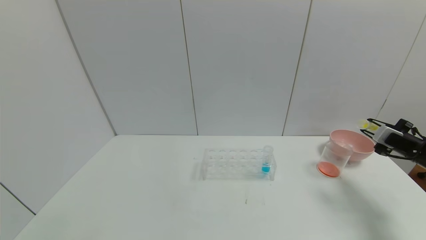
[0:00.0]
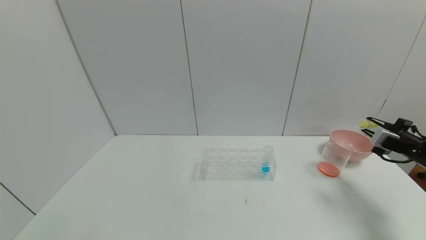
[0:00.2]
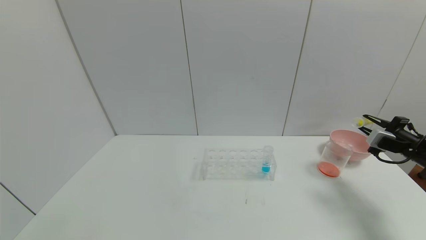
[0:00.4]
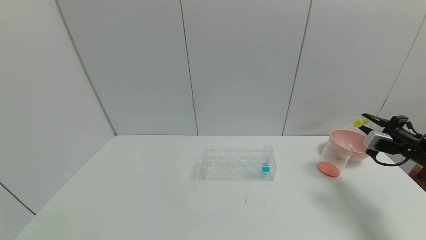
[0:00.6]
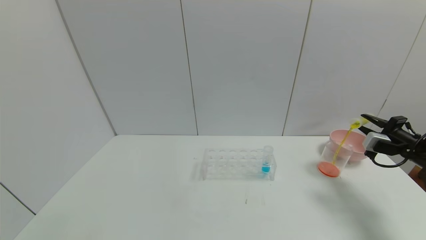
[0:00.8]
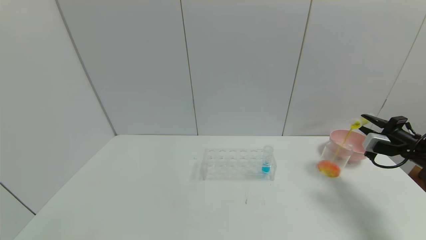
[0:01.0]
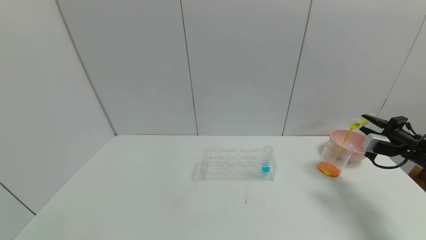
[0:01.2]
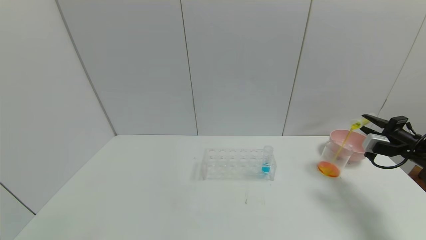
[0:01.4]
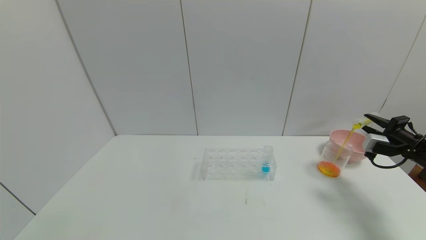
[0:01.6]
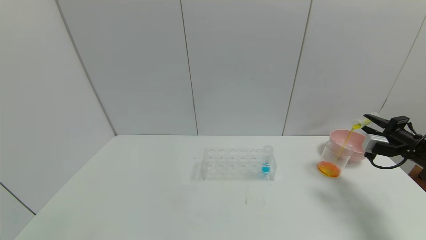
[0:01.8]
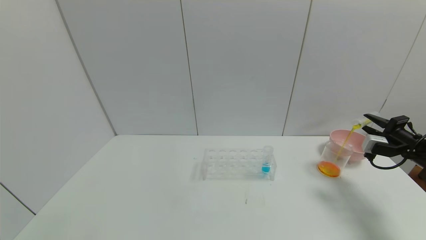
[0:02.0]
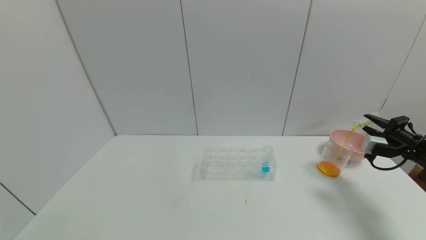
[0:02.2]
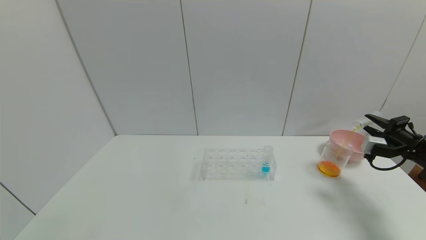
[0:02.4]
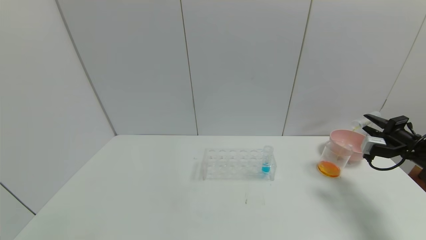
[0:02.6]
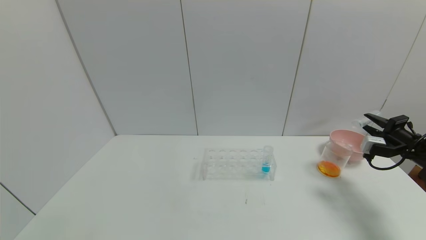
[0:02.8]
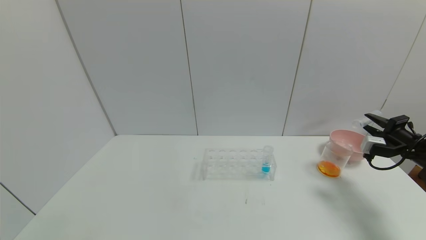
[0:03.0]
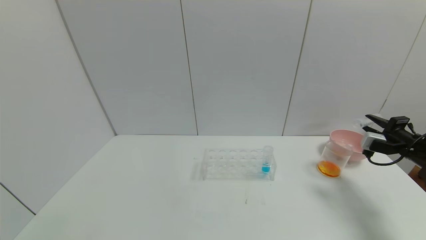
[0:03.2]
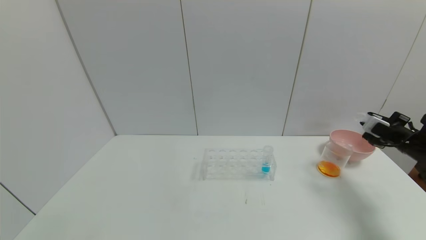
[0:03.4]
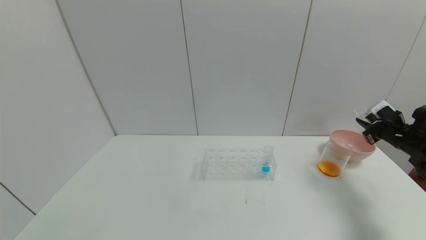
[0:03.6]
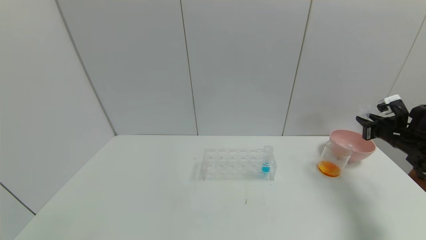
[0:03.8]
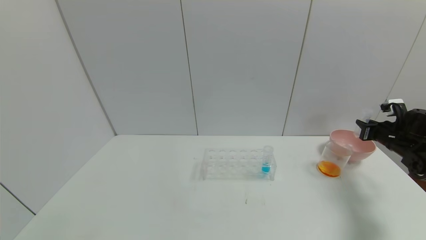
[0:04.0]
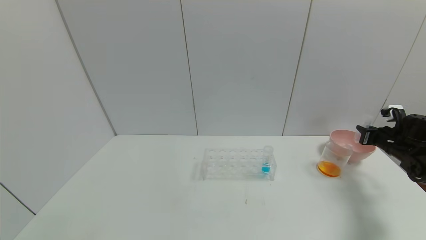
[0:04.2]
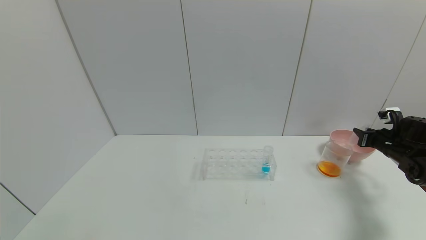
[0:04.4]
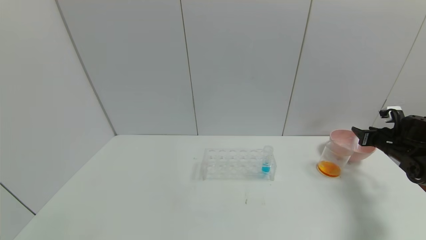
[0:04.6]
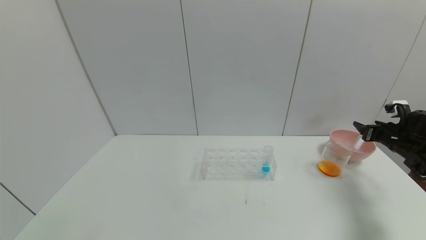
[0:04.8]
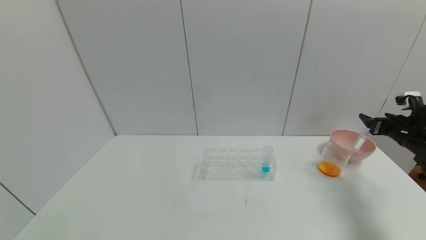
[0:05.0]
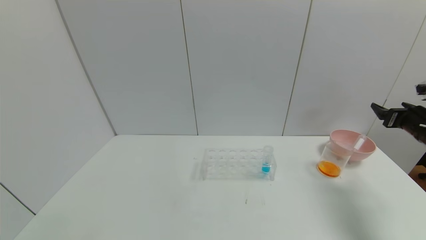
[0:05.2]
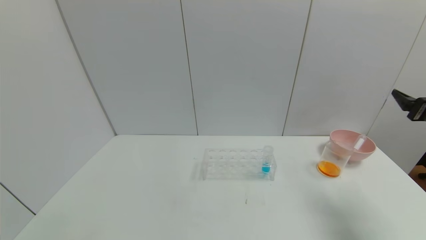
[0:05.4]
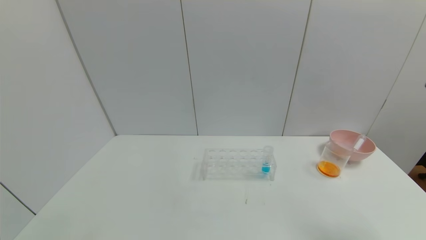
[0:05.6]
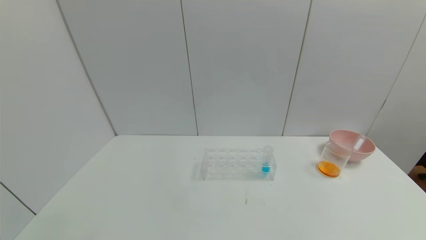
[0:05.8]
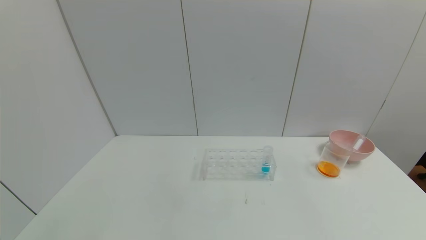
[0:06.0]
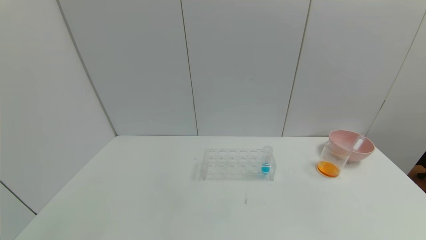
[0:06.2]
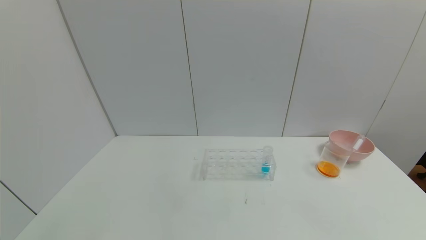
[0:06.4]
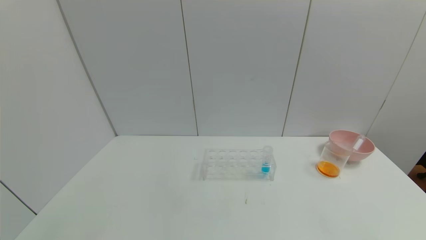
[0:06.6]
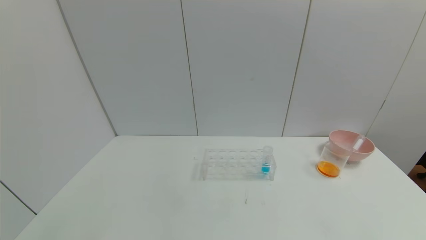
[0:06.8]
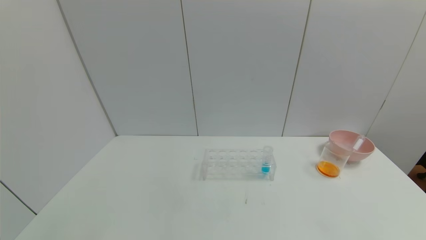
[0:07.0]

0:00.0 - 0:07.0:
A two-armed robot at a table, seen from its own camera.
Task of the whole recording: pick up the test tube with yellow pigment and the test tube with red pigment by grippers and pour them into the beaker.
Step, 0:00.0 - 0:02.8: Pour the yellow reagent into the graduated cylinder with the right gripper.
Step, 0:03.0 - 0:04.6: Place the test tube into the bowl with the right gripper.
0:01.4 - 0:02.8: The grippers make only small movements.
0:02.8 - 0:04.2: The right gripper moves some 5 cm.
0:04.2 - 0:05.6: The right gripper shifts about 25 cm backward and upward, and opens.

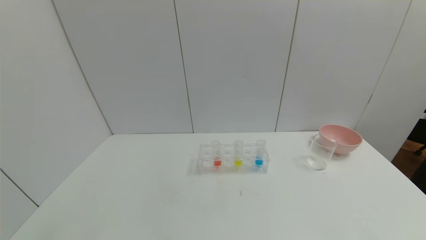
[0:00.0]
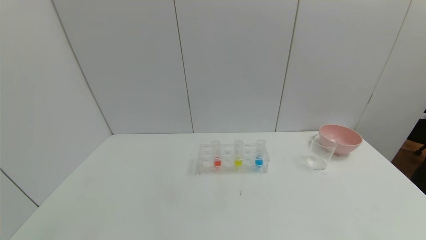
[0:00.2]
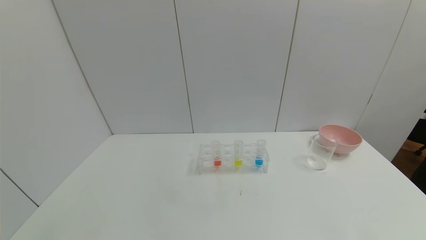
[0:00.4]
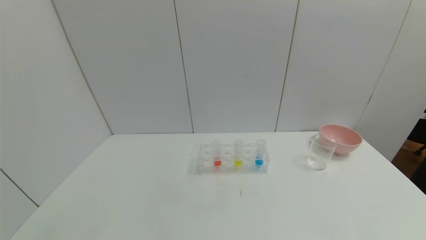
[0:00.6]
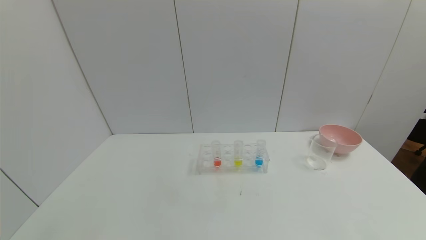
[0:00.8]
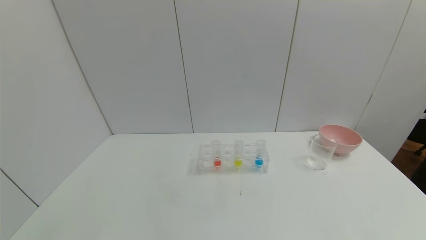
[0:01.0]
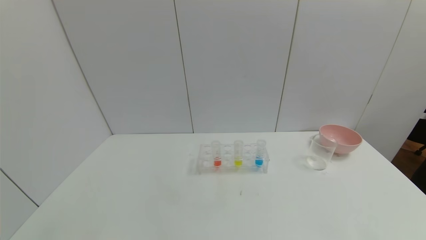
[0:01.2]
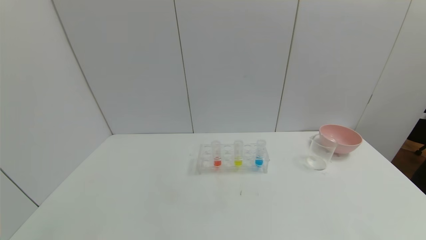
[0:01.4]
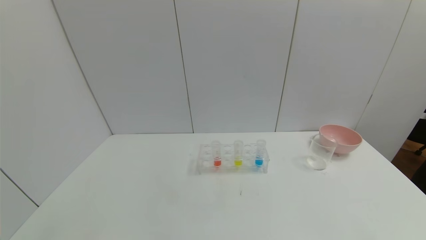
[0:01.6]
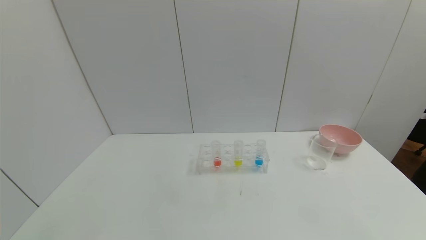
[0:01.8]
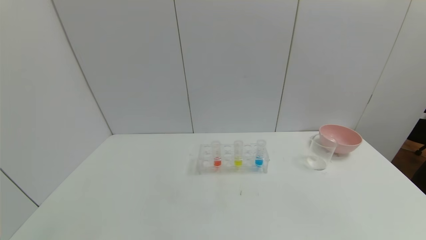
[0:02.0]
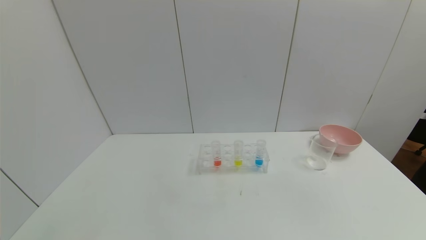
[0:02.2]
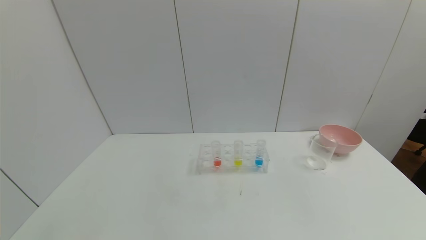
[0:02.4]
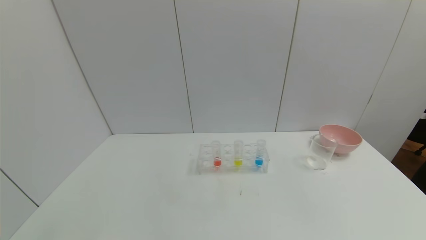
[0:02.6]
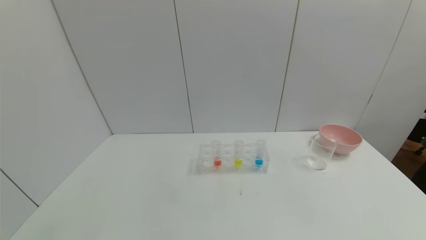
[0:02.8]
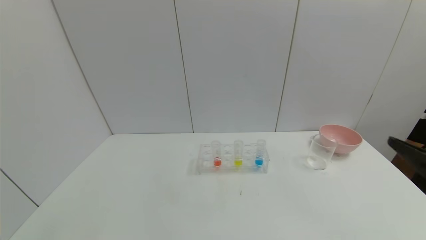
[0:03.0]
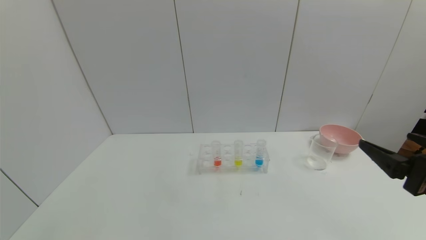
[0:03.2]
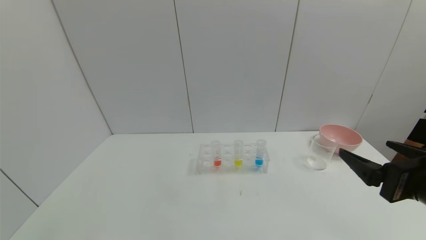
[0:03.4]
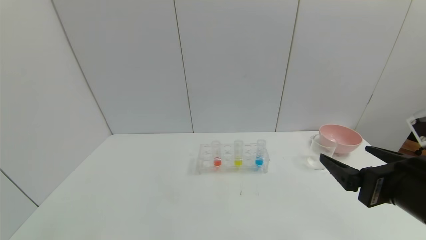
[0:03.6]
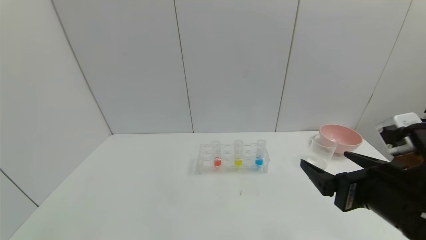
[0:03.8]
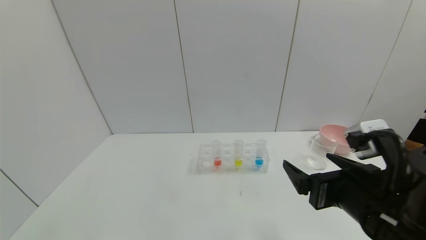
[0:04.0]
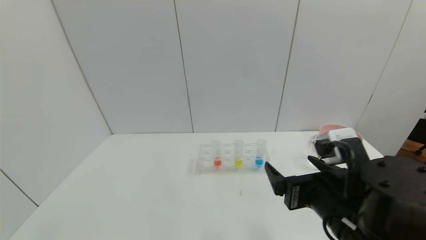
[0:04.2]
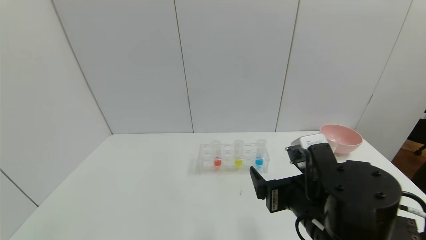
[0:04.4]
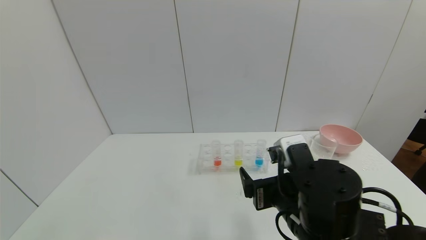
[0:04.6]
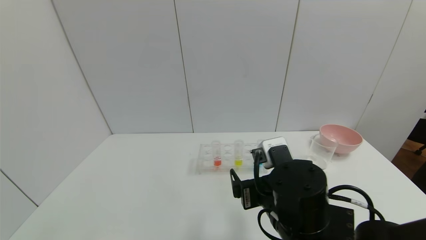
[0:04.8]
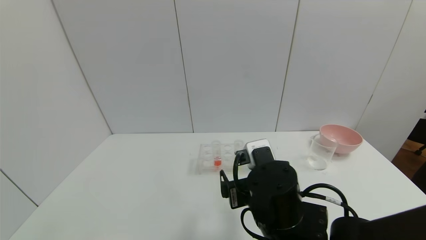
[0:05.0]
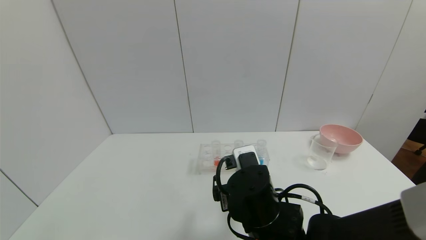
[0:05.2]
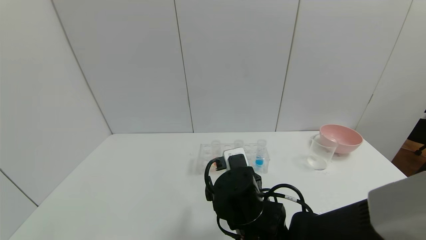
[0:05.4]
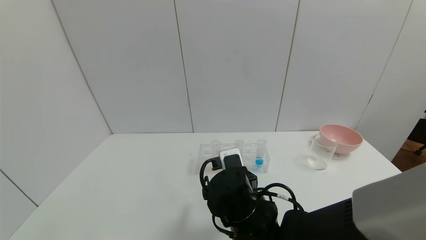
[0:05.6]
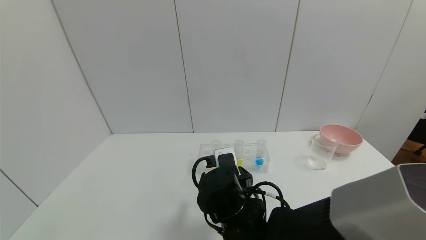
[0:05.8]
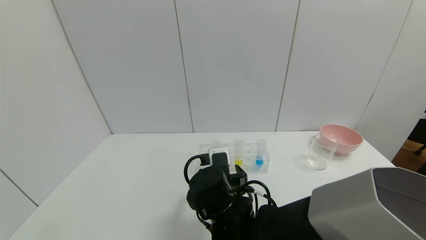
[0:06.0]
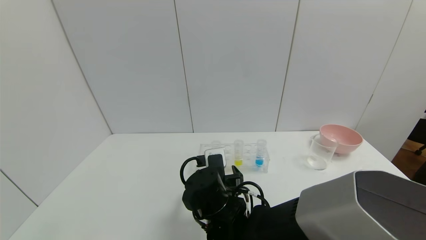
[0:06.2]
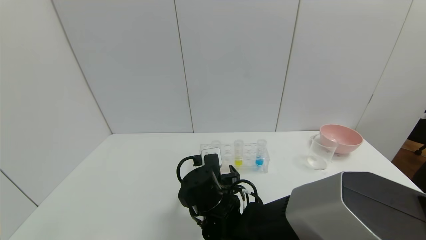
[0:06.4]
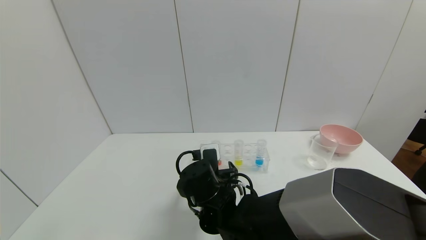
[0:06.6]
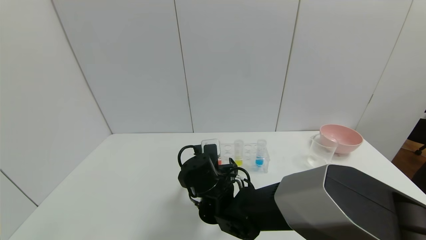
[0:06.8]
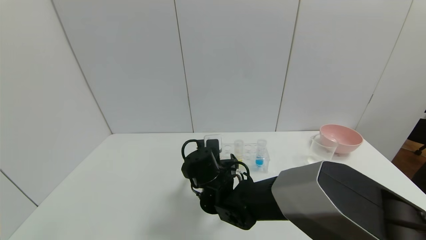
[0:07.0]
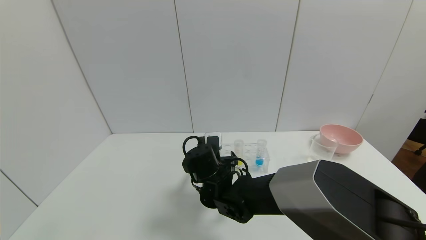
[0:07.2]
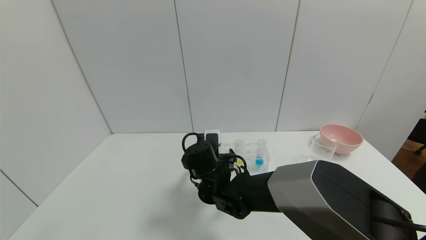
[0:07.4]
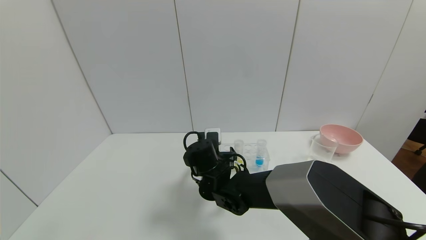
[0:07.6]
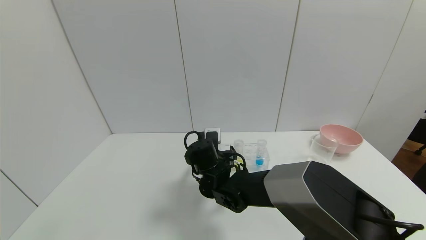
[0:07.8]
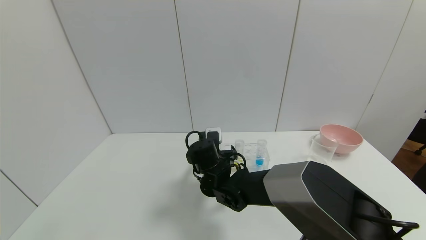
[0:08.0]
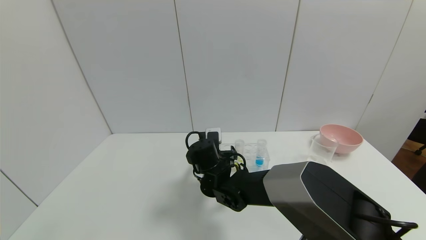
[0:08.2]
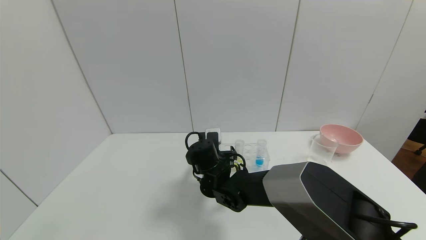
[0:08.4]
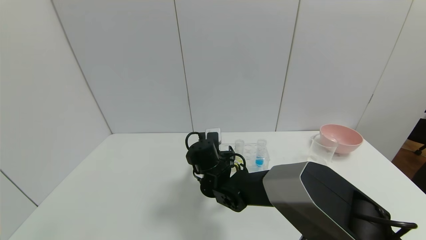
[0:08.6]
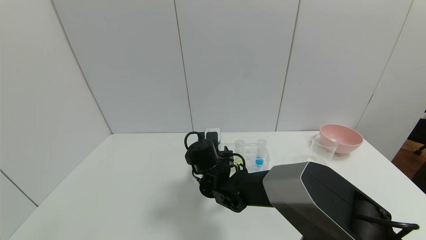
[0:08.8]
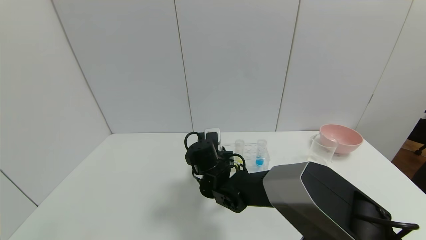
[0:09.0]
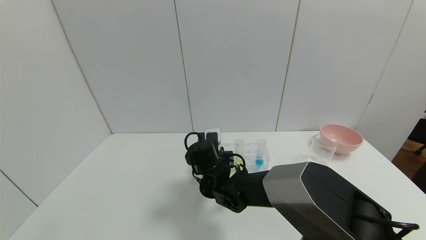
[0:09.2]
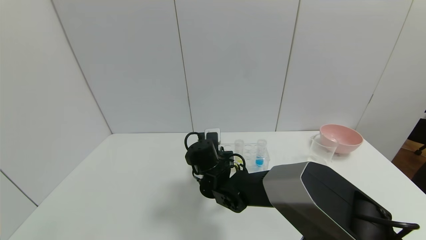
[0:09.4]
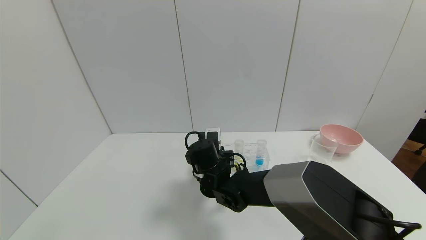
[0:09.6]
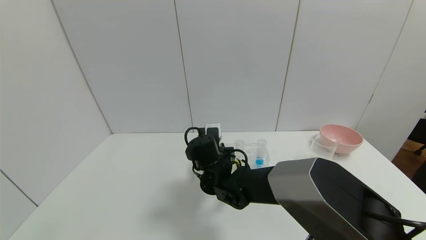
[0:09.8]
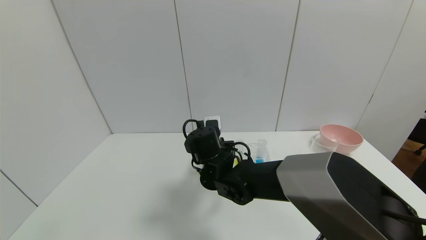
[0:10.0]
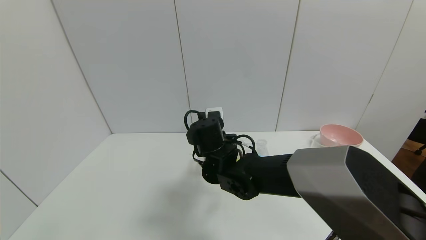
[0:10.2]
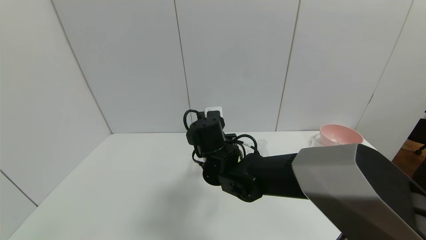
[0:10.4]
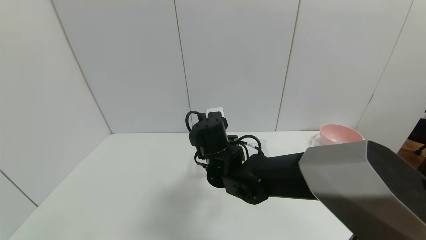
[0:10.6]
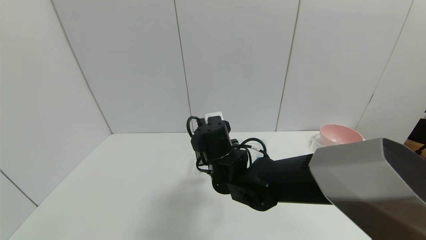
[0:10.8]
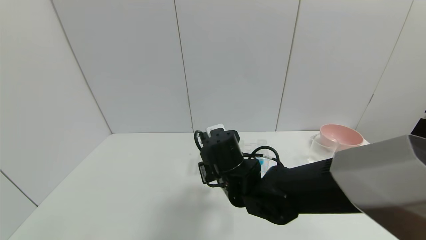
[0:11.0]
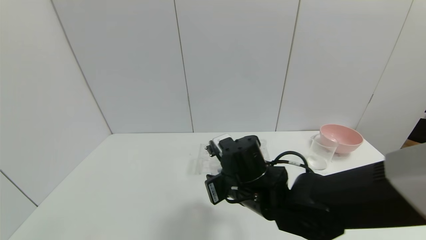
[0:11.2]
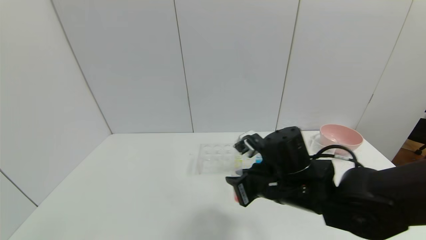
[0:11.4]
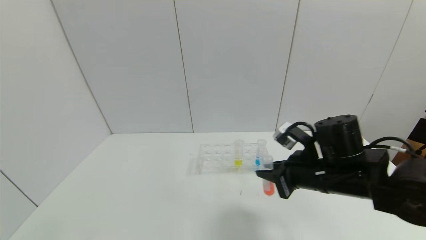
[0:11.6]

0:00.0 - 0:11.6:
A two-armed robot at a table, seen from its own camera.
Task of the whole recording: pick up the test tube with yellow pigment and the test tube with red pigment by grippers and pour them into the beaker.
Step, 0:00.0 - 0:09.2: Grasp the red reagent with the right gripper.
0:00.0 - 0:01.4: Both grippers stay about where they are.
0:02.8 - 0:04.4: The right gripper goes about 20 cm to the left and downward.
0:04.4 - 0:05.8: The right gripper heads to the left, downward and forward, covering about 15 cm.
0:05.8 - 0:07.2: The right gripper moves forward, about 10 cm.
0:07.2 - 0:08.8: The right gripper closes up.
0:08.8 - 0:10.2: The right gripper goes roughly 5 cm upward, and closes its fingers.
0:10.2 - 0:11.6: The right gripper goes roughly 20 cm to the right.
